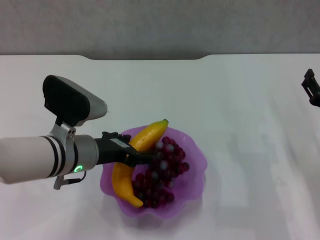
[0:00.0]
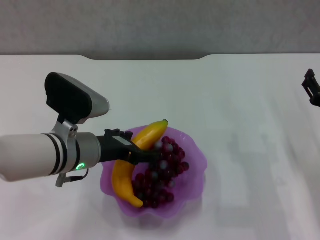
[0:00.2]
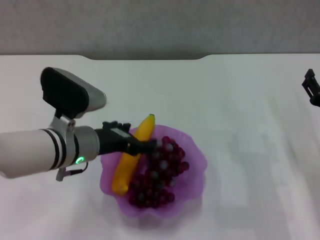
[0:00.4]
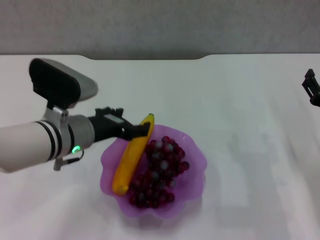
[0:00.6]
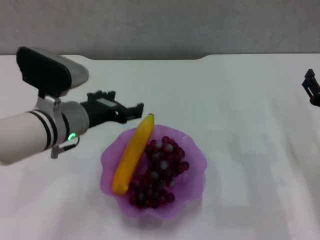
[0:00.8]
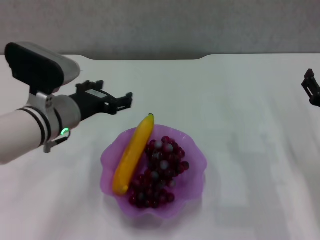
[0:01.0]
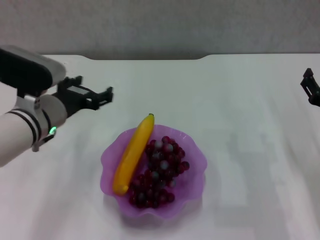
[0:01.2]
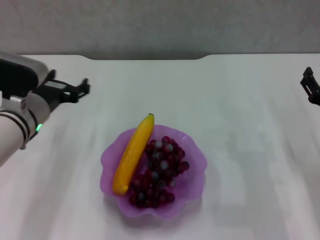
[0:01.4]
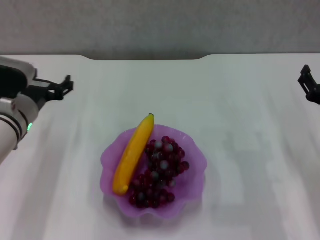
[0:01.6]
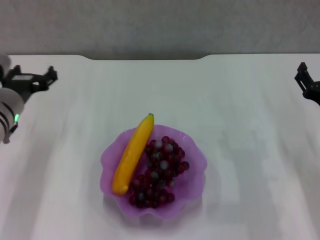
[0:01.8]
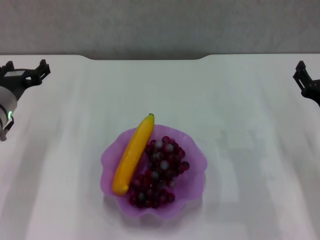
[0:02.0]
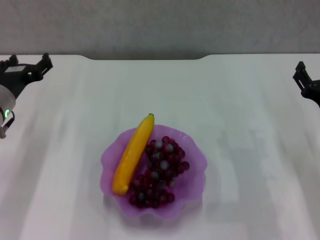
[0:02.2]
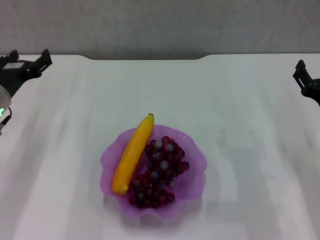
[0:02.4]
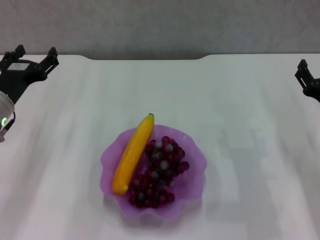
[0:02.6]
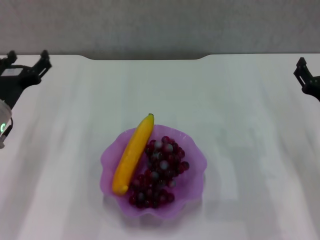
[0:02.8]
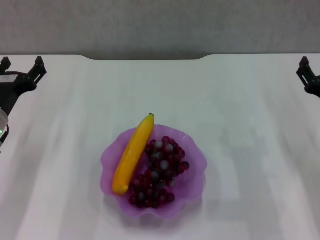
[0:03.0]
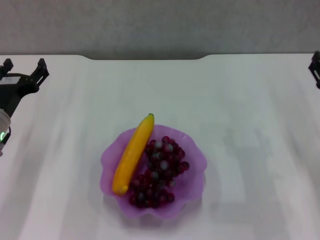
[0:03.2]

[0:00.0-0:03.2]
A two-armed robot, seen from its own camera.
0:00.0 to 0:01.6: The left gripper travels to the left by roughly 10 cm, and opens up.
0:01.6 to 0:03.2: The left gripper changes place by some 5 cm.
